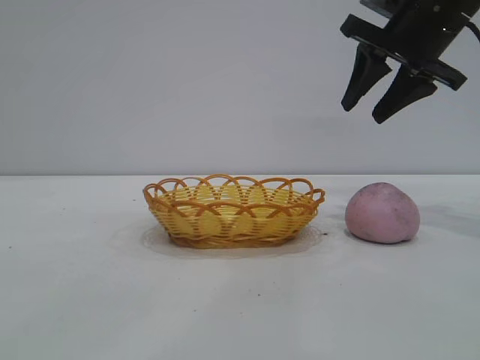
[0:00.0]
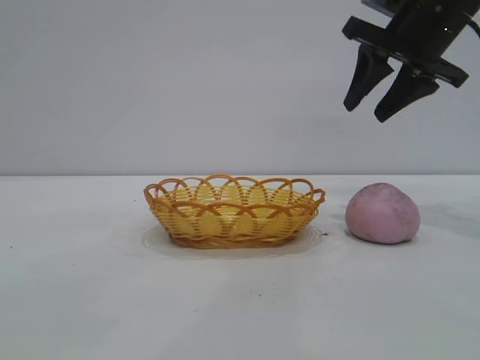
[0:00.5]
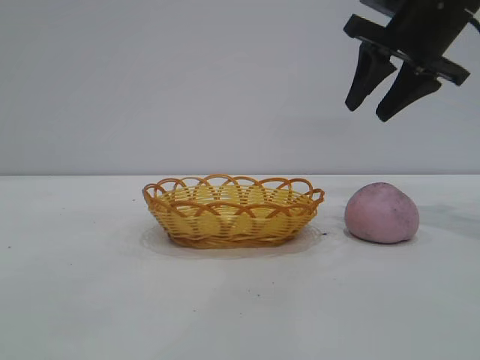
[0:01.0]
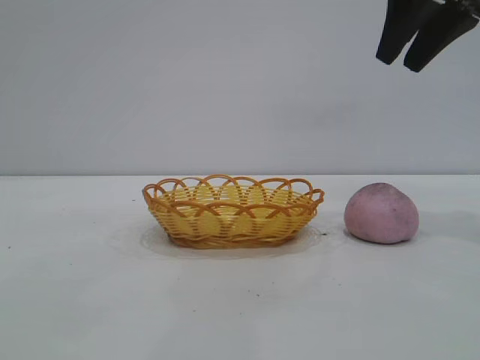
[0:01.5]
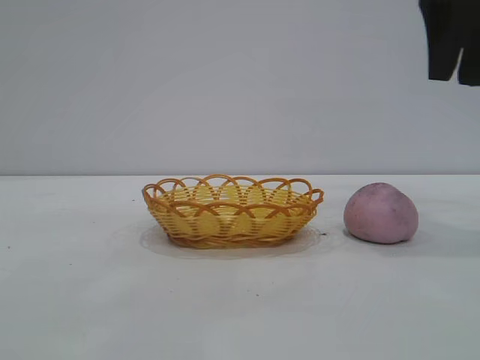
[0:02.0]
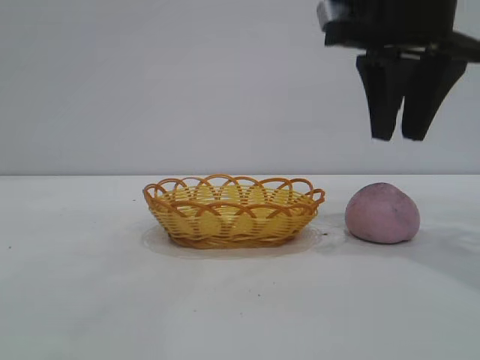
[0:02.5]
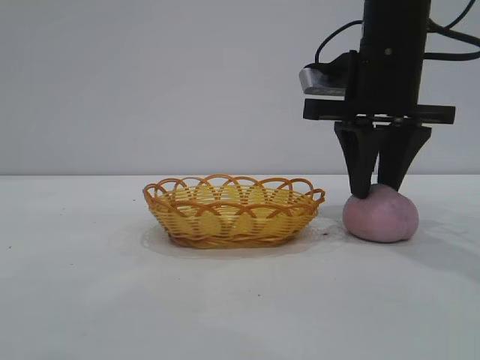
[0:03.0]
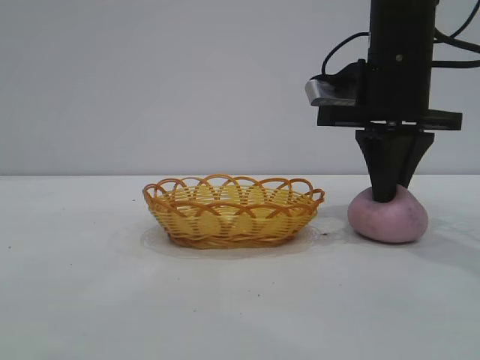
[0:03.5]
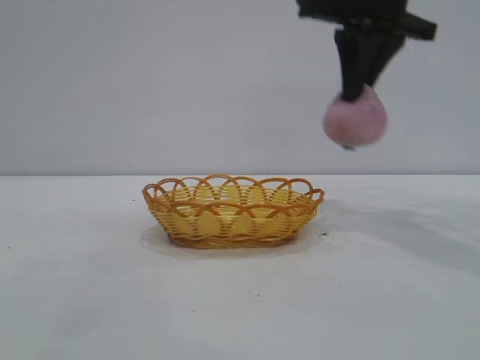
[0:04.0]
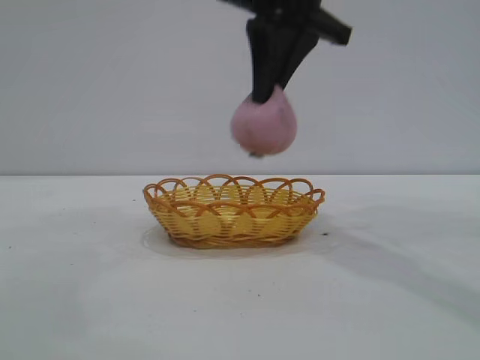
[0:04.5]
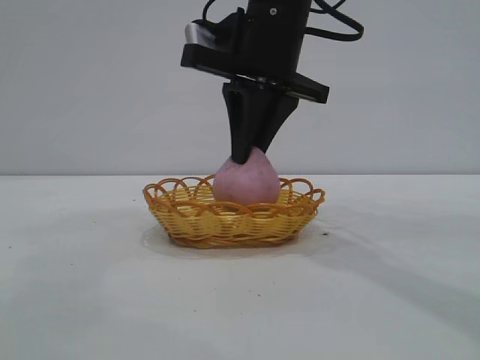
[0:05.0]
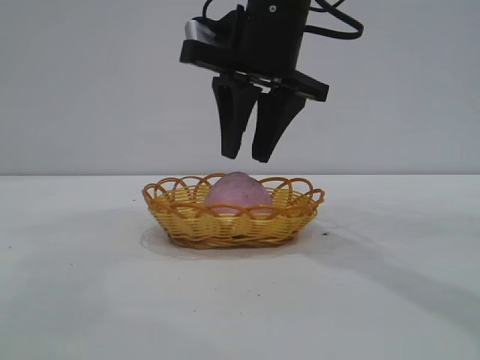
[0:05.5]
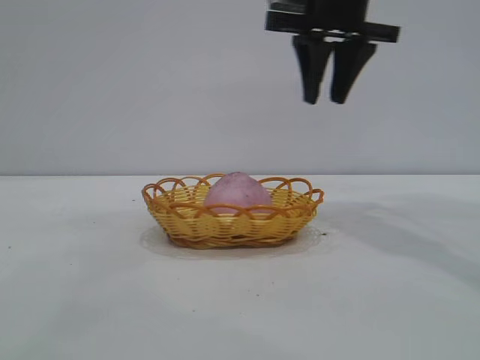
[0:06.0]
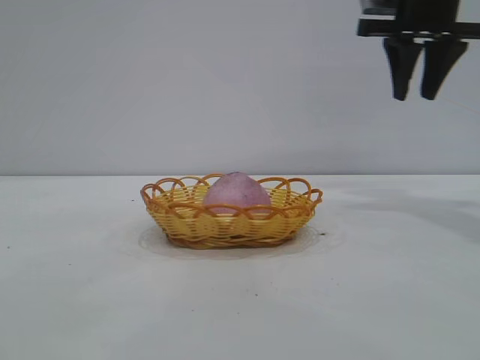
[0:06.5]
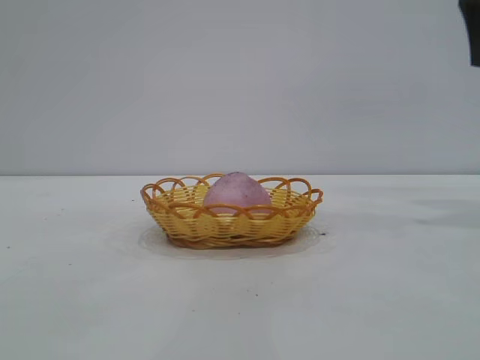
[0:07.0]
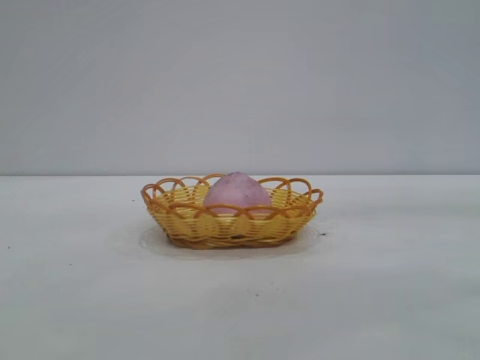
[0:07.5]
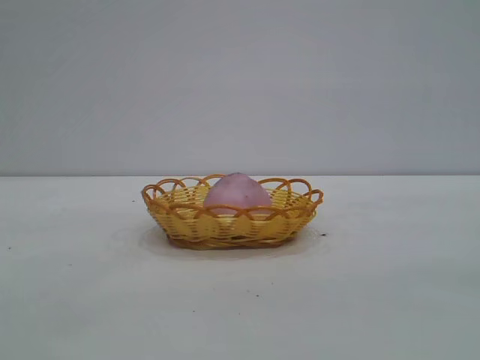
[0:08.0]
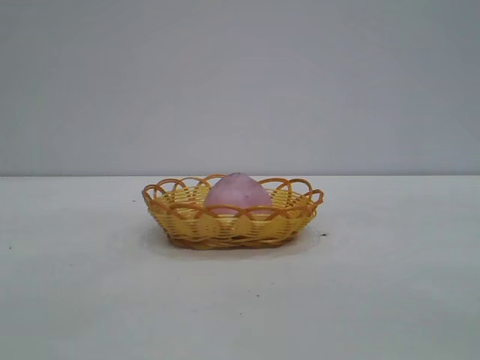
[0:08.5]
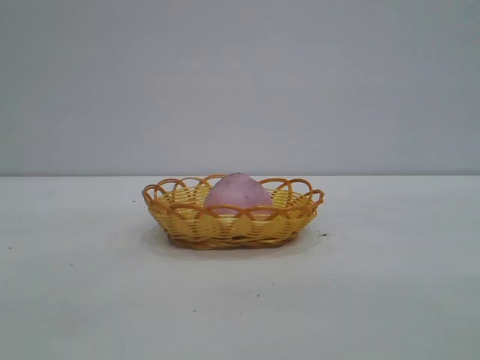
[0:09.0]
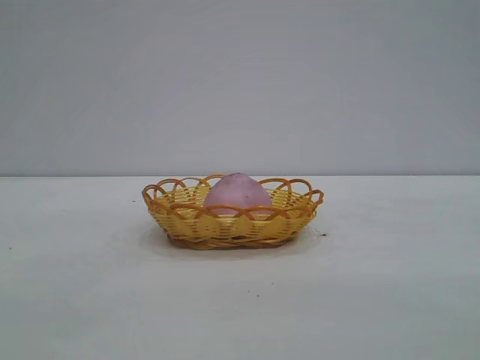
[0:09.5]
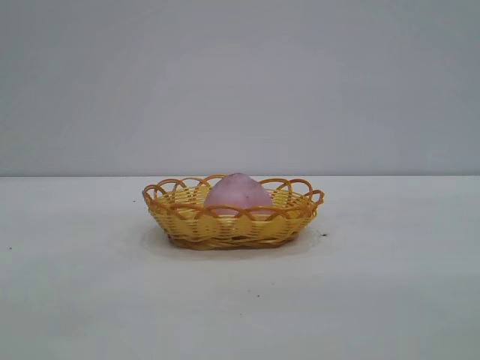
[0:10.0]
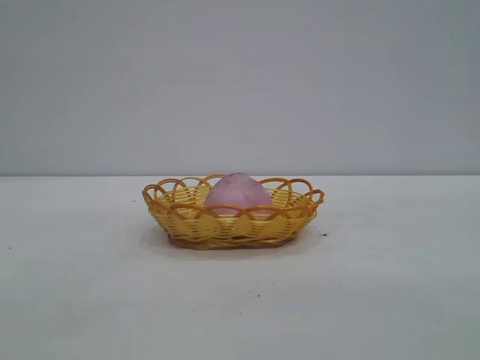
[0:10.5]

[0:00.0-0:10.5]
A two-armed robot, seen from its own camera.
Task of the whole recording: pick up the peach and put it into the basket.
Step, 0:00.0 to 0:03.5: Pick up the peach.
Step, 0:04.0 to 0:05.5: place the peach into the basket.

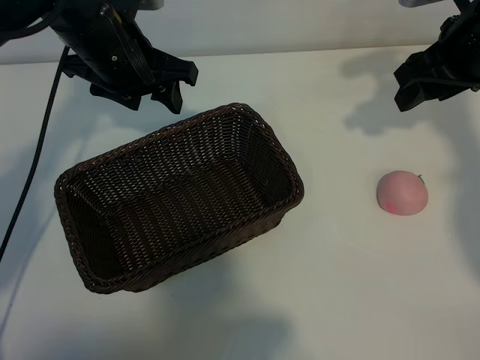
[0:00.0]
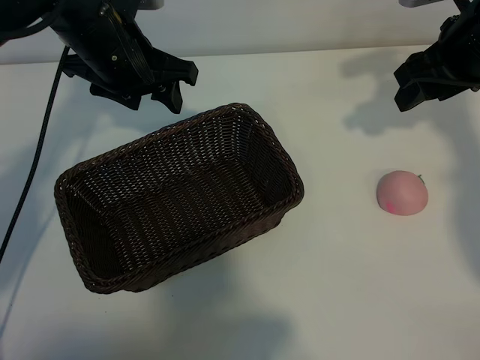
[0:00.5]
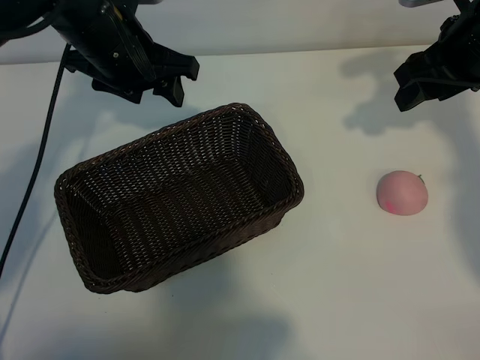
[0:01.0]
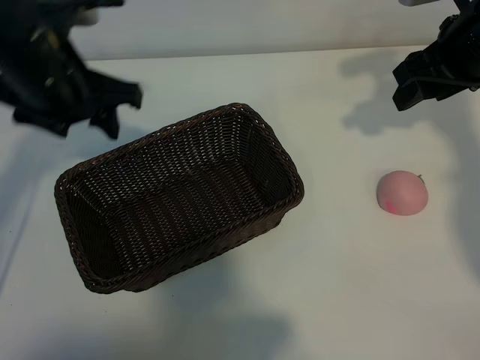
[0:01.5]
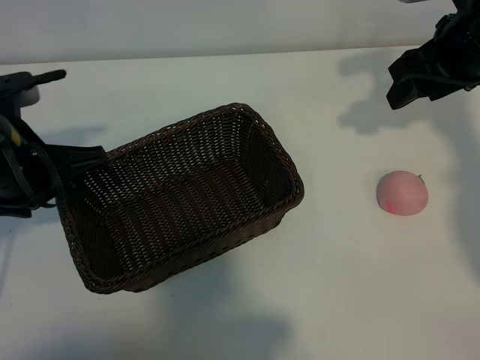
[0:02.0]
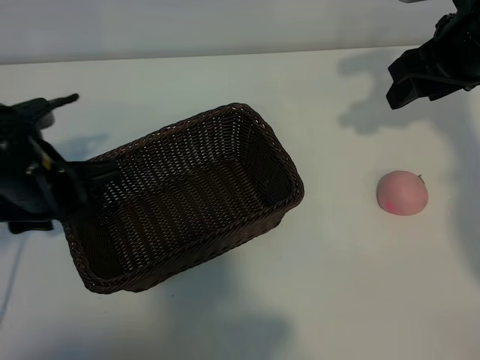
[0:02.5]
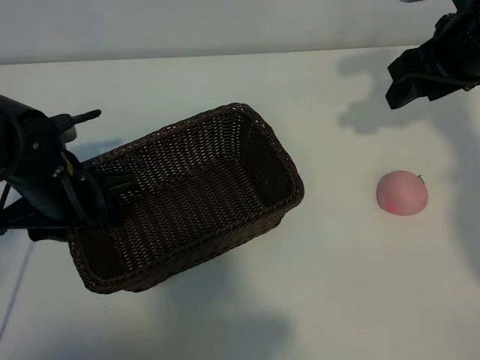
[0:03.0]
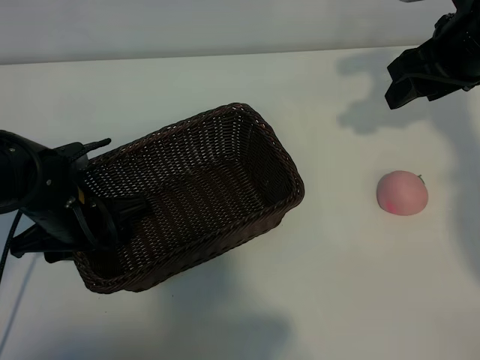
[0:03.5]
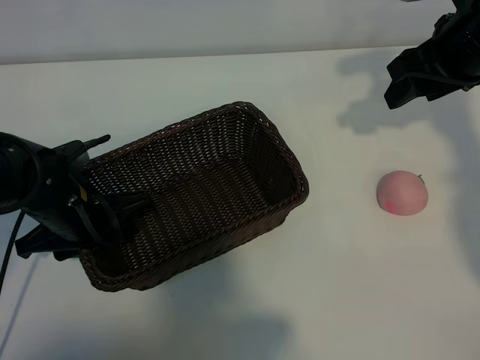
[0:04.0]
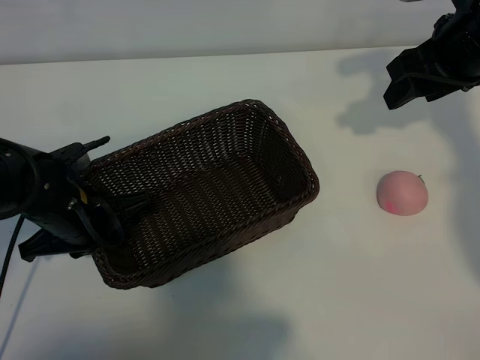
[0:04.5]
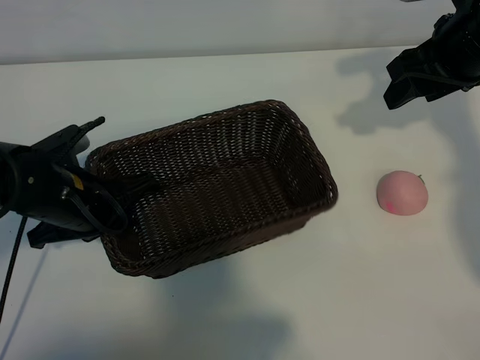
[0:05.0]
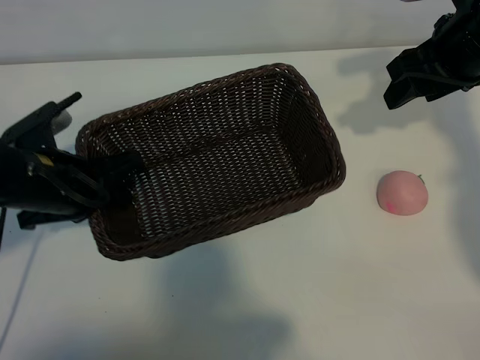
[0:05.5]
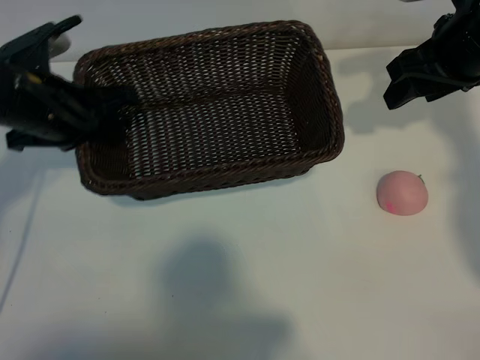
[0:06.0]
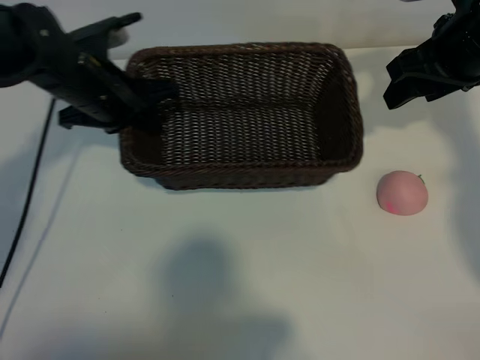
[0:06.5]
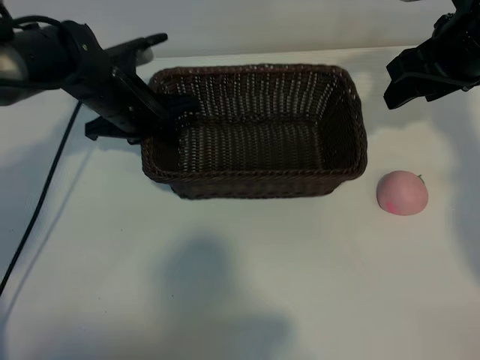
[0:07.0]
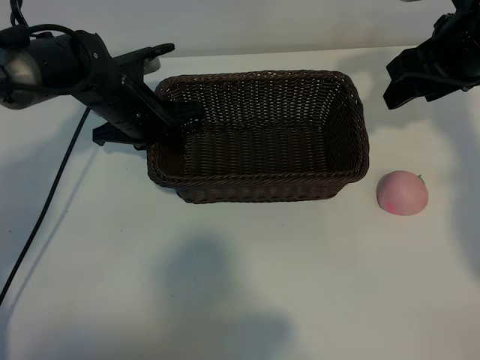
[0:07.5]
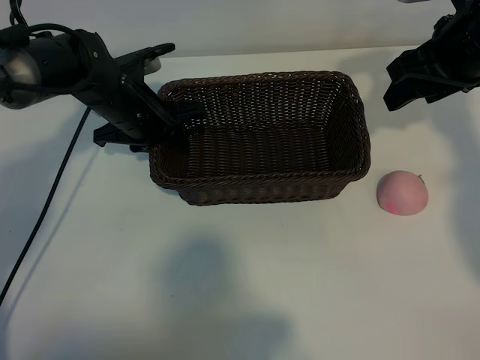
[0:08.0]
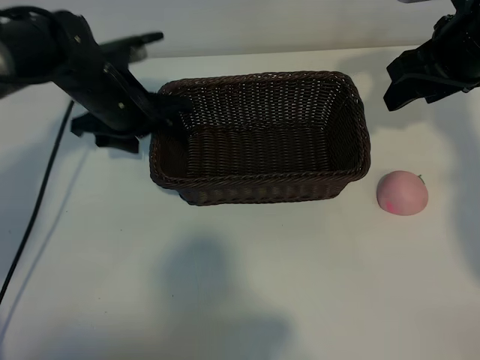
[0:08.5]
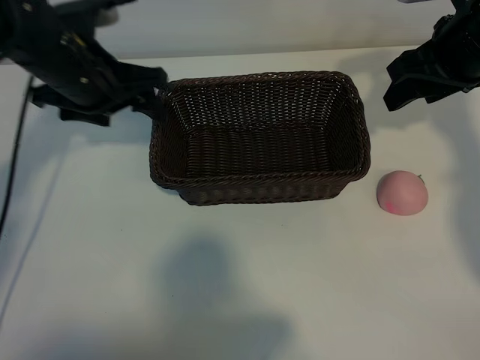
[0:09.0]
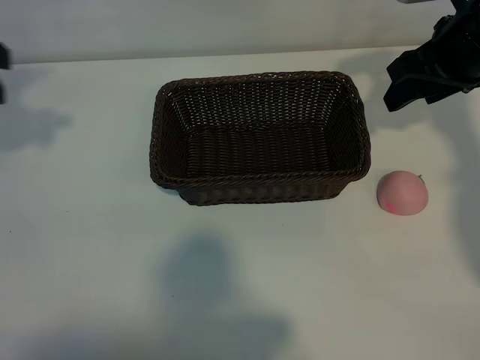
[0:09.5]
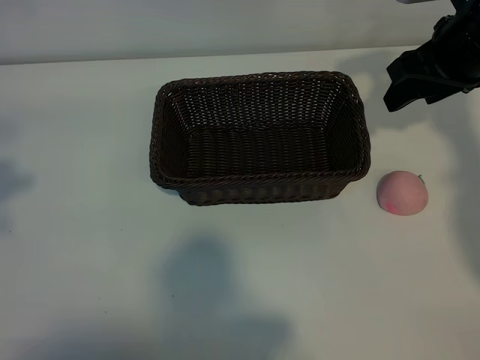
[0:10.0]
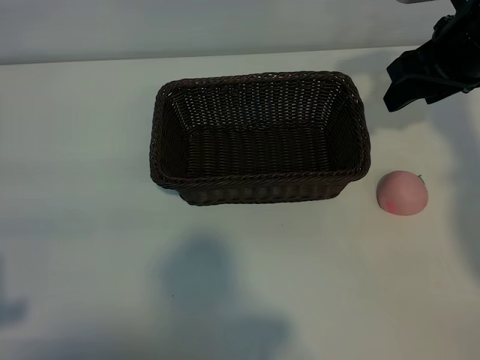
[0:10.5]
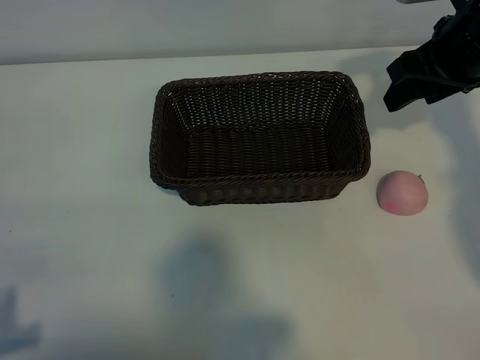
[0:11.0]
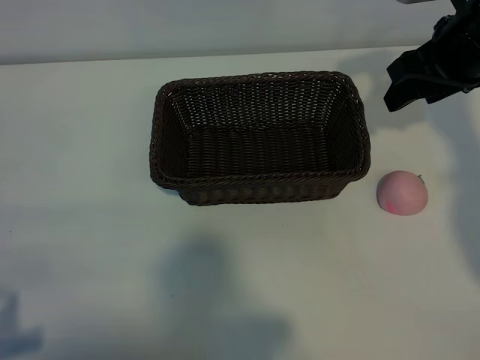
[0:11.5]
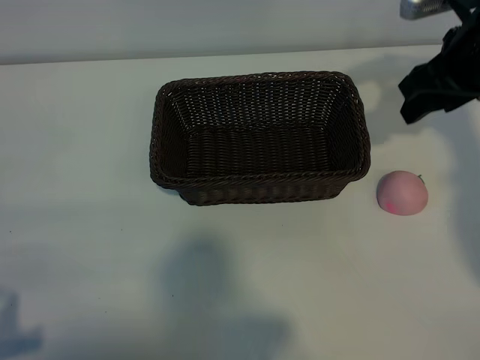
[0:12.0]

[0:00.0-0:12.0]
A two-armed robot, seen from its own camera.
Task of the whole recording: pick up the peach and put it into the basket.
Step, 0:01.0 to 0:04.0: Grasp the basket with left gripper.
Step, 0:04.5 to 0:08.5: Place the basket in the center of view with left gripper.

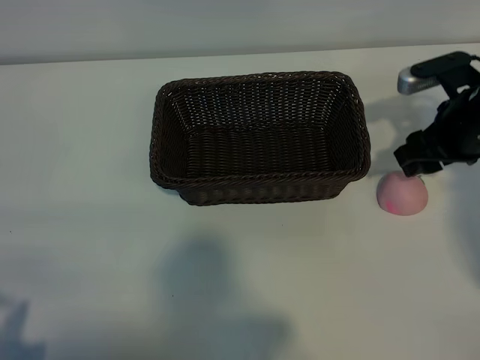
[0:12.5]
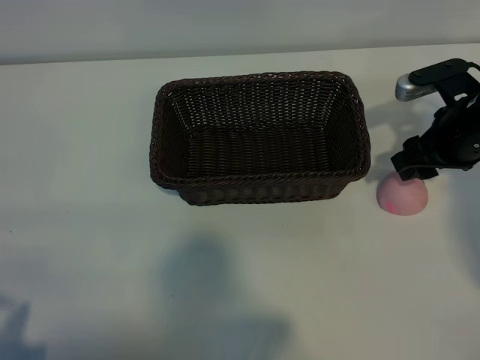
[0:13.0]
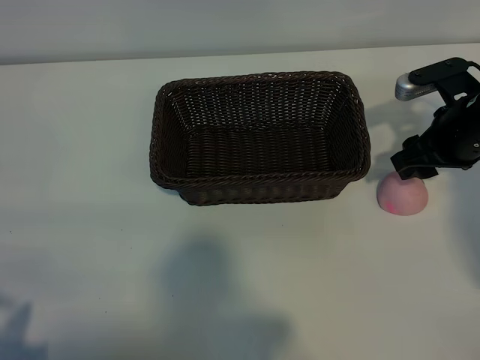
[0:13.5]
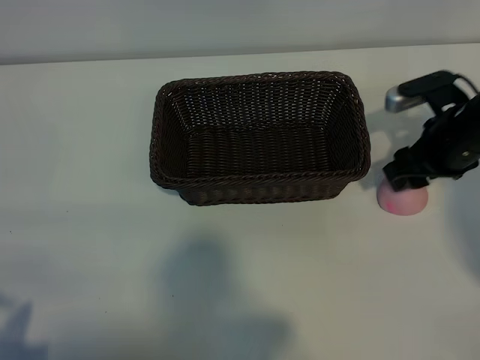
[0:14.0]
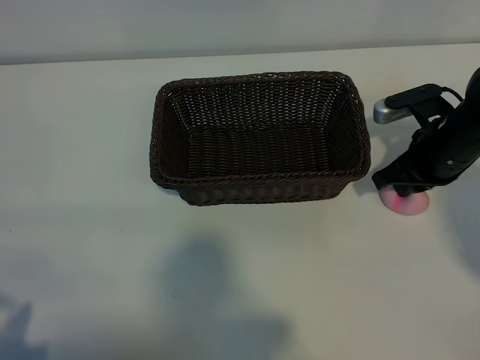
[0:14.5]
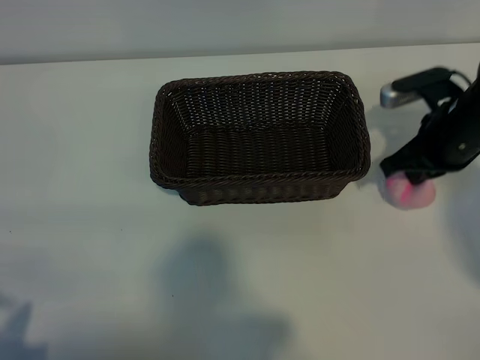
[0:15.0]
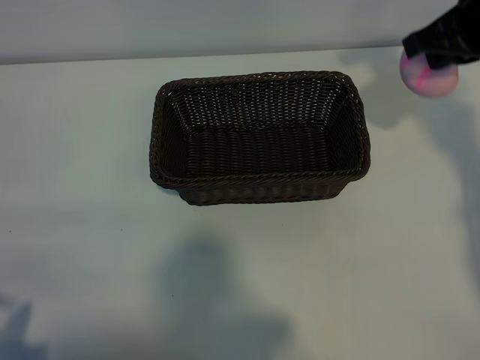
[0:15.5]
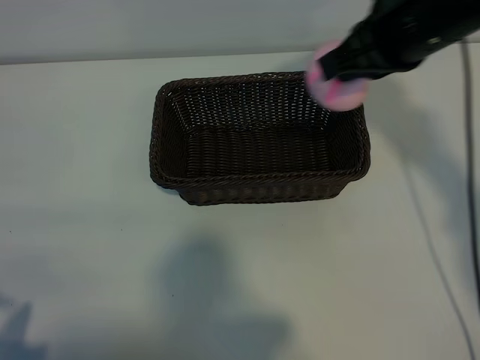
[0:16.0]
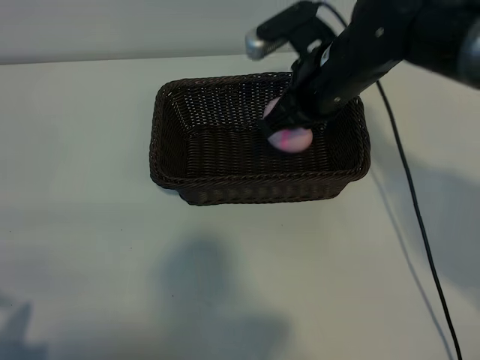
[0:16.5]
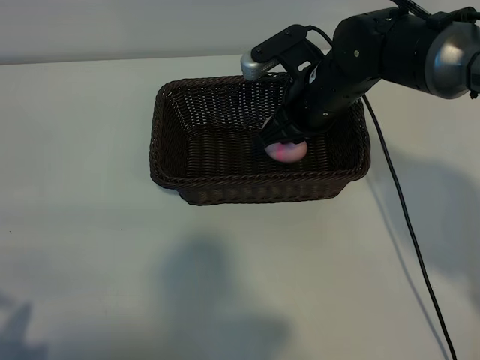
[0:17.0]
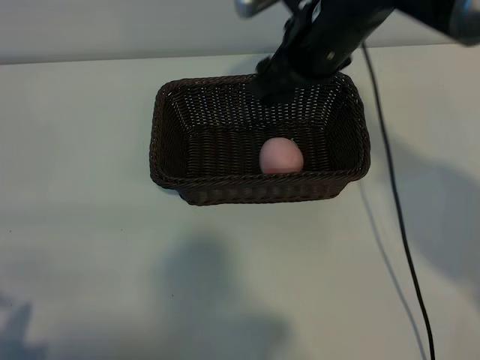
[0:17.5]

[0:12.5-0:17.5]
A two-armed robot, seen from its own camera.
Task of the whole recording: pick up the peach and put it into the basket.
Step, 0:12.5 to 0:14.5: Grasp the peach with right gripper.
Step, 0:15.0 to 0:17.0: Place the peach in the basket with right gripper.
